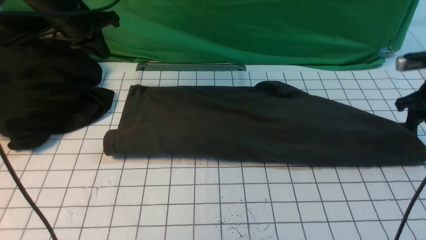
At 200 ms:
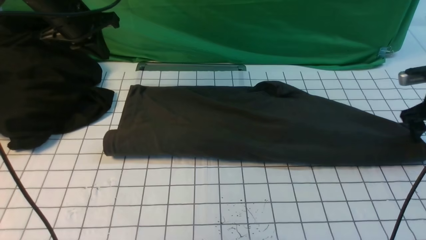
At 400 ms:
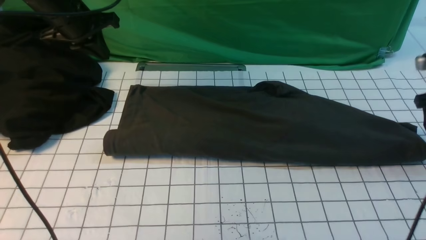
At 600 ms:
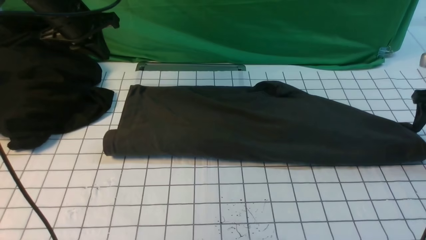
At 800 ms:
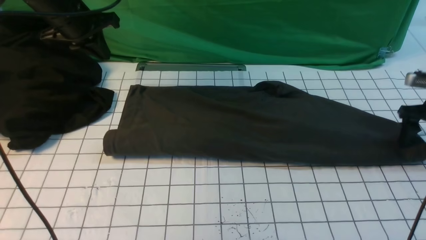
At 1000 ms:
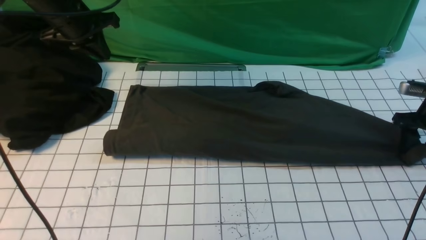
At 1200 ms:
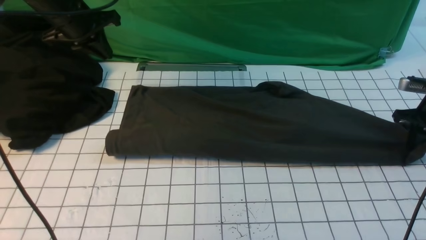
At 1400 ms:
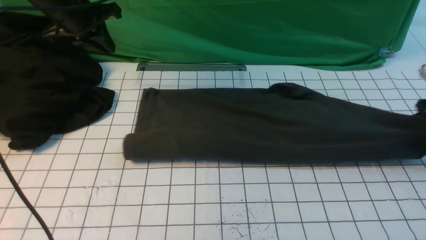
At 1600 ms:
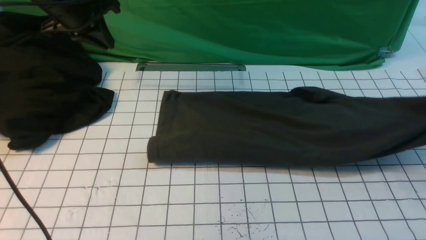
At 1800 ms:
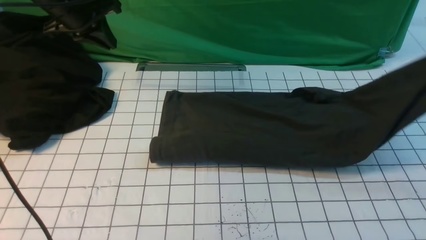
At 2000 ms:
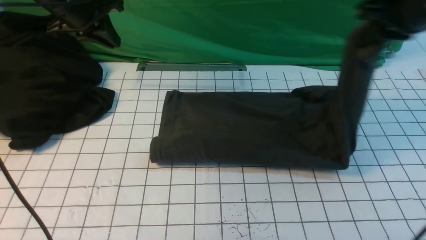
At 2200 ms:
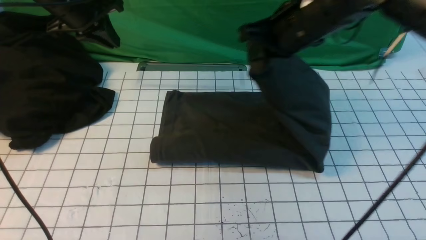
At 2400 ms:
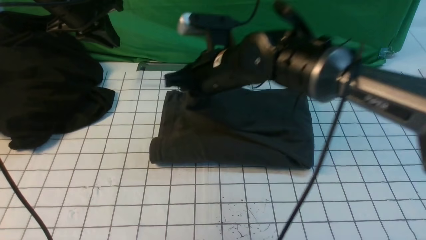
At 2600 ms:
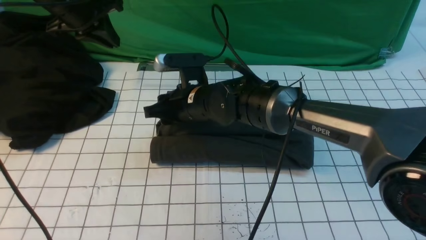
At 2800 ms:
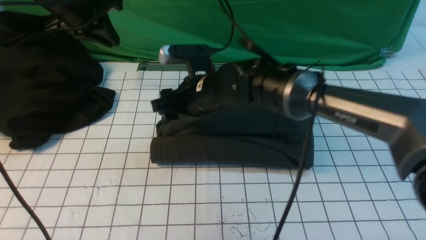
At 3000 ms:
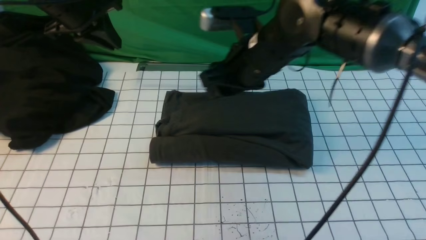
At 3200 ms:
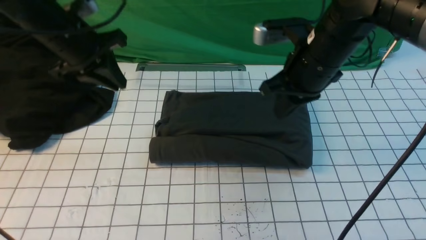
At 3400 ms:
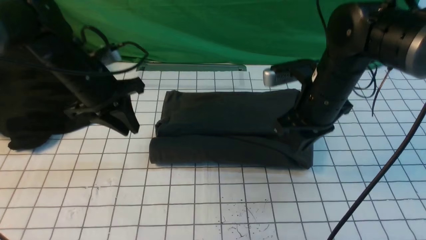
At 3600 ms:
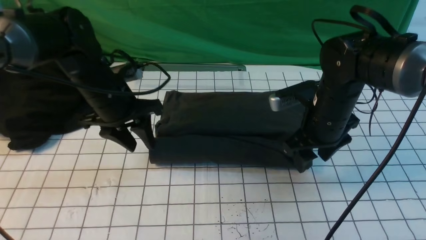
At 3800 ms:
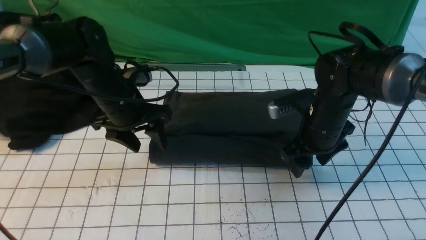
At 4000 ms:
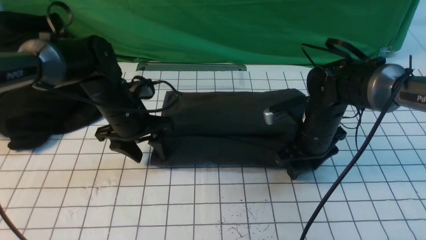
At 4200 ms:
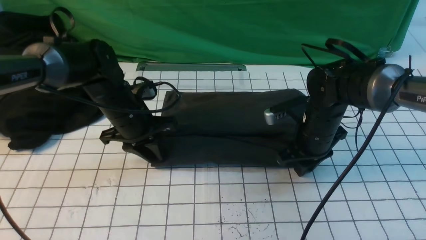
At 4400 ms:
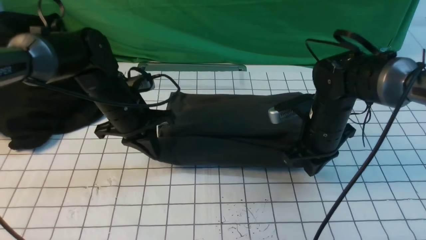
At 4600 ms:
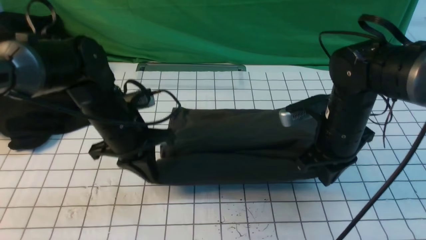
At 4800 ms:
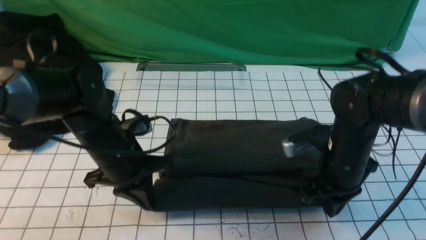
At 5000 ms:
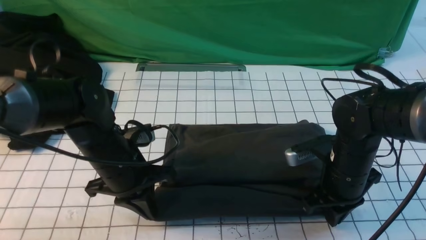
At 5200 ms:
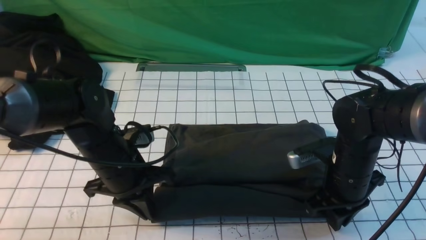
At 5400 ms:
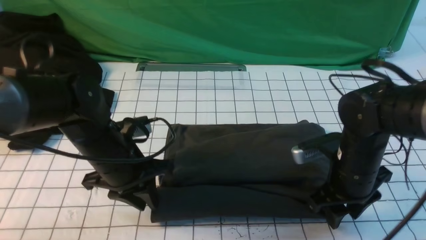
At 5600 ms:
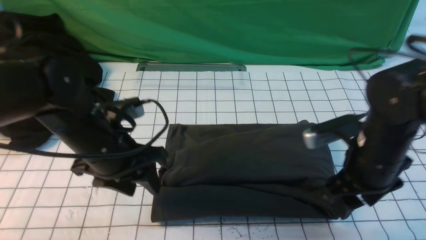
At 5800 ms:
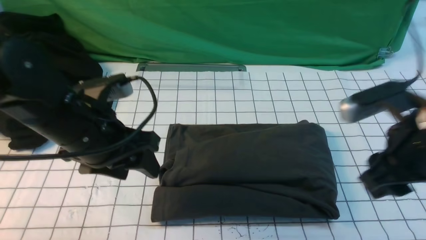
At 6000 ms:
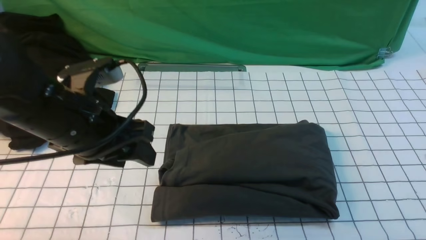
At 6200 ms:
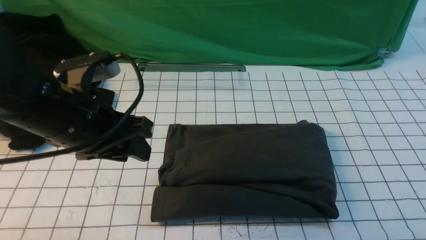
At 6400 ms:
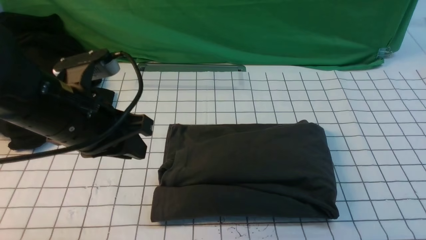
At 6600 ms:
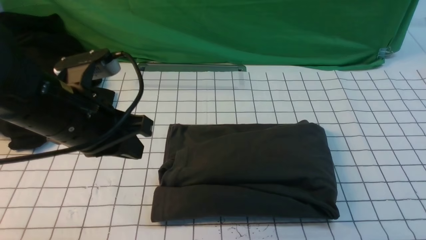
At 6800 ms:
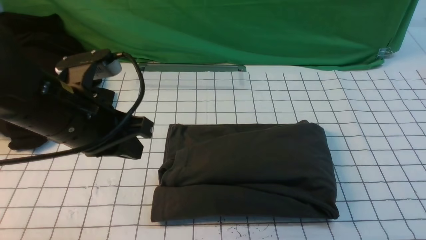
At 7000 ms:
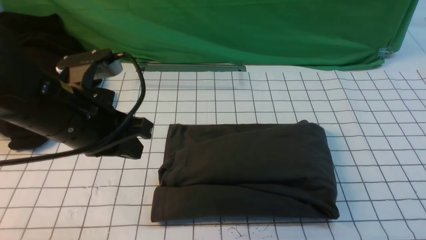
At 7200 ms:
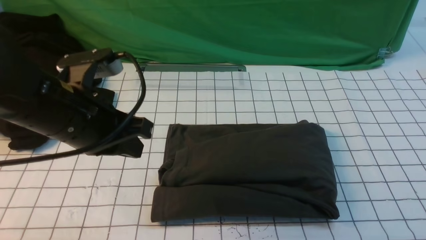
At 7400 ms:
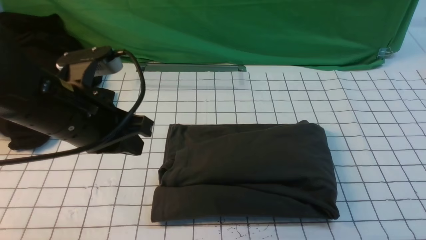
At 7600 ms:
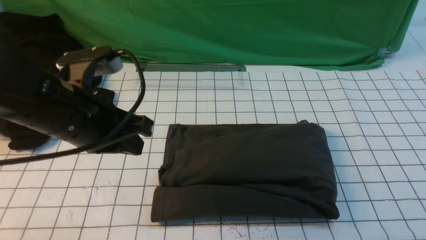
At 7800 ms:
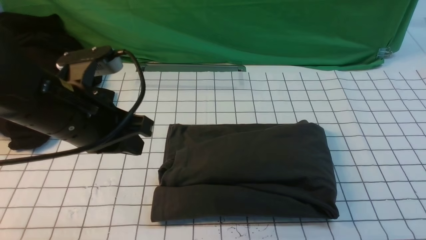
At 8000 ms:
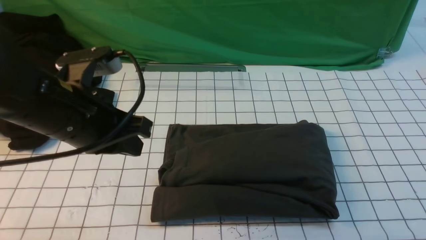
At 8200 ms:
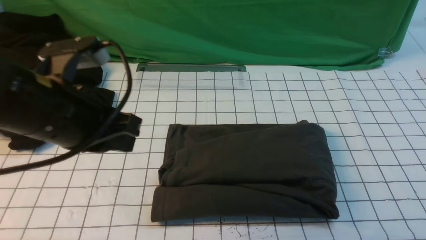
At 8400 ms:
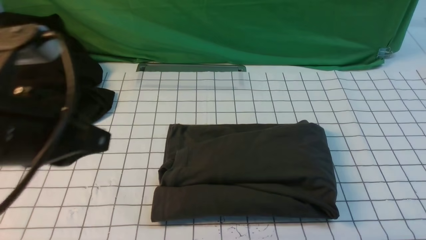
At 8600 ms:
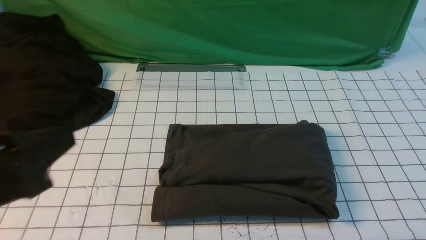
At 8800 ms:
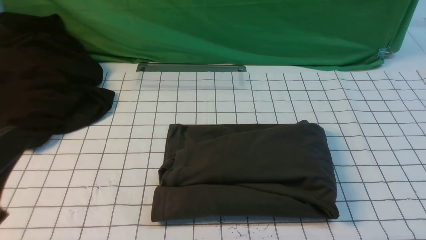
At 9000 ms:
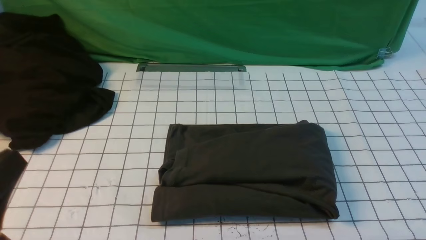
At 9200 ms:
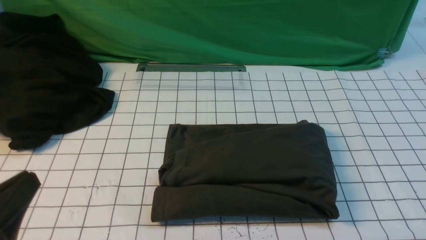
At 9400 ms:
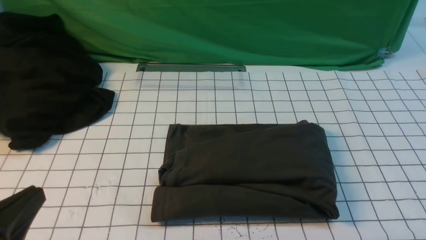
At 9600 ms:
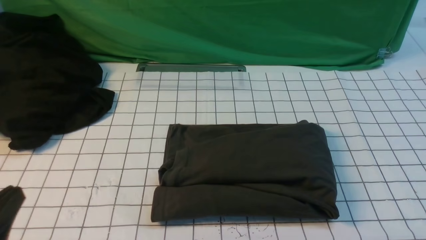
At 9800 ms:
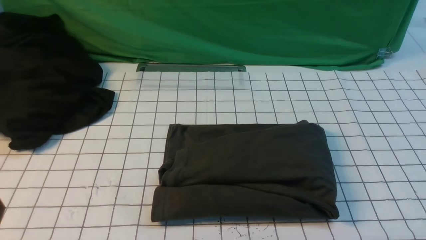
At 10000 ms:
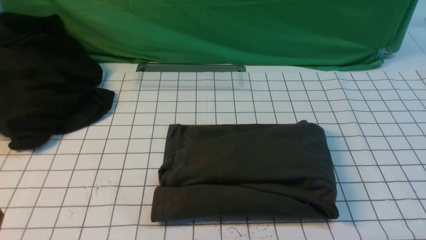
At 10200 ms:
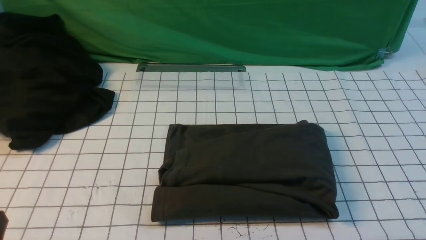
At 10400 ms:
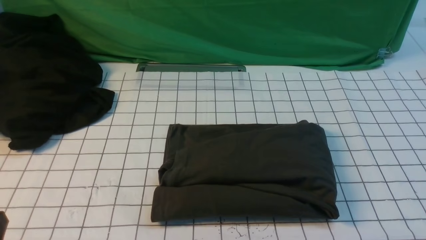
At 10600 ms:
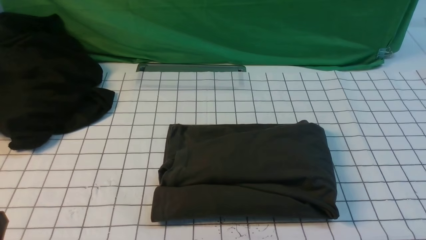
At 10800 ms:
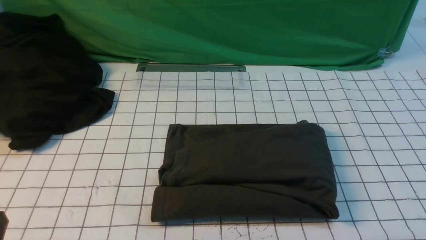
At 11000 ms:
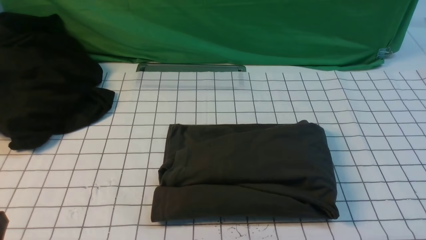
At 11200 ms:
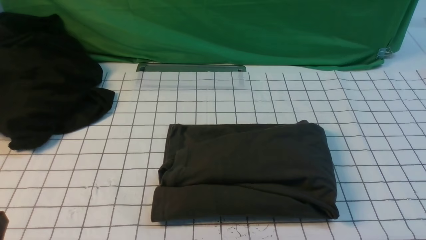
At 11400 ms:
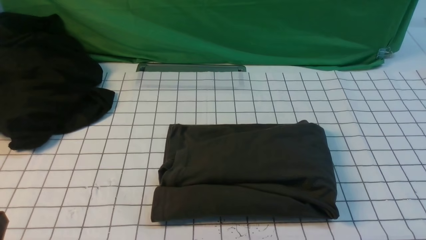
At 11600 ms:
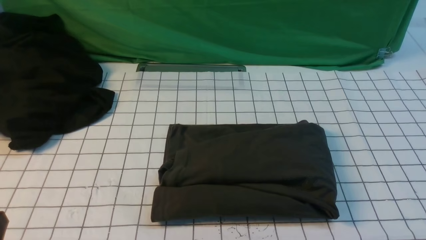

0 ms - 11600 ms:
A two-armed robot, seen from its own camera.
Step, 1600 ms - 2800 ms: use the right arm to drag the right edge of the fabric to the left and folds it over the left edge.
0 ms - 1400 ms: The right gripper closes up.
1400 ms - 2800 ms: The right gripper is displaced to the left by approximately 40 cm, and opens.
2800 ms - 4400 ms: The left gripper moves downward, backward and to the right, about 20 cm, and opens and closes again. Meanwhile the right gripper heads to the right, covering roughly 15 cm, and closes its fingers.
4400 ms - 5800 ms: The left gripper moves backward and upward, about 15 cm, and opens up, while the right gripper travels backward, upward and to the right by roughly 20 cm.
5800 ms - 7200 ms: The right gripper shifts approximately 15 cm backward and to the right, and closes; the left gripper closes up.
7200 ms - 8800 ms: The right gripper travels downward by about 15 cm, while the left gripper moves backward and to the left, approximately 20 cm.
8800 ms - 10200 ms: The left gripper travels downward by some 10 cm.
10200 ms - 11600 ms: The two grippers keep their place.

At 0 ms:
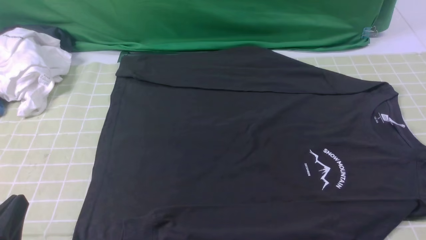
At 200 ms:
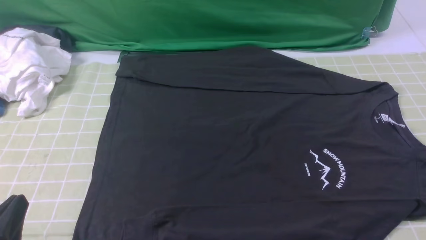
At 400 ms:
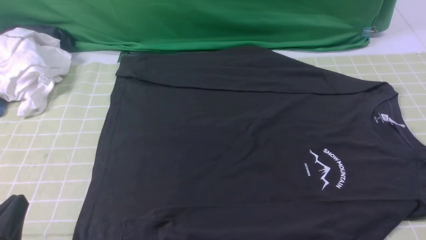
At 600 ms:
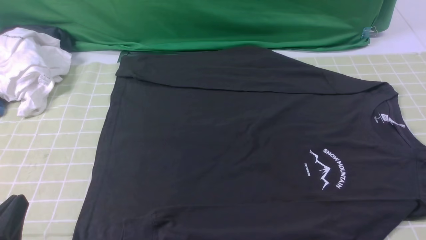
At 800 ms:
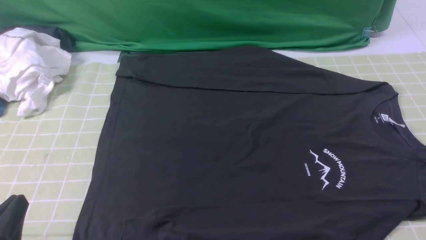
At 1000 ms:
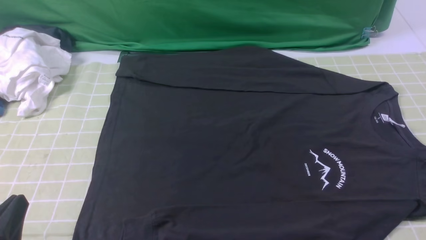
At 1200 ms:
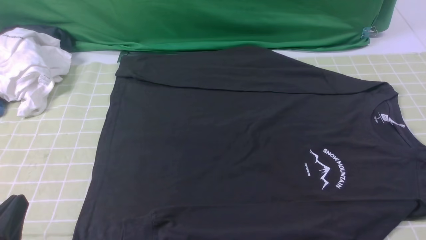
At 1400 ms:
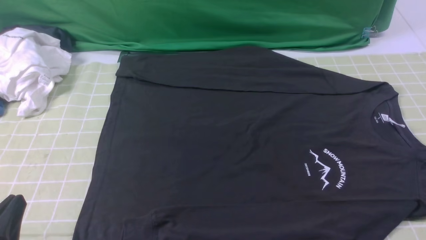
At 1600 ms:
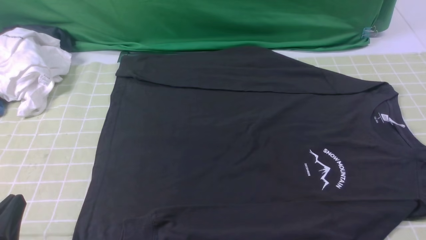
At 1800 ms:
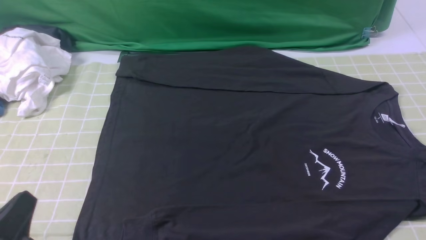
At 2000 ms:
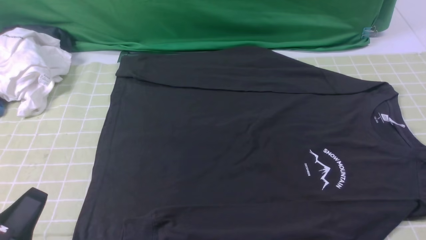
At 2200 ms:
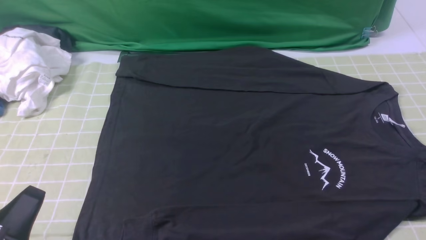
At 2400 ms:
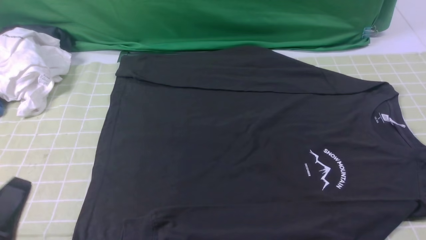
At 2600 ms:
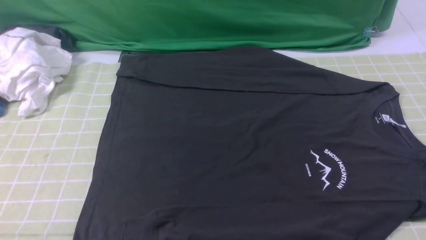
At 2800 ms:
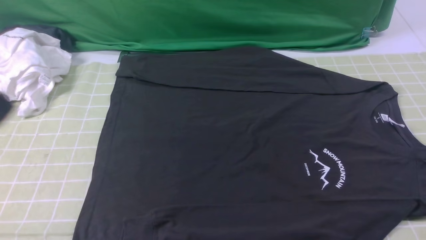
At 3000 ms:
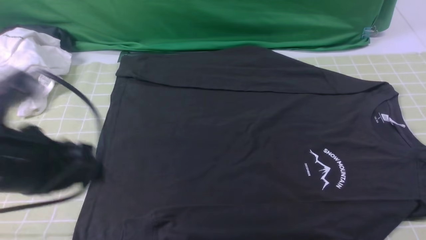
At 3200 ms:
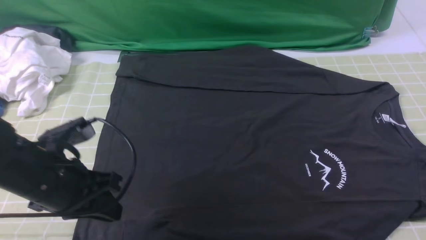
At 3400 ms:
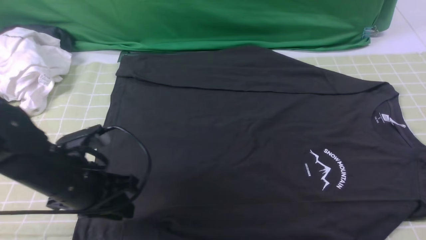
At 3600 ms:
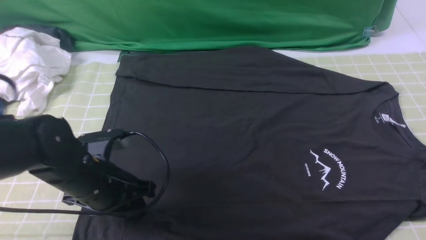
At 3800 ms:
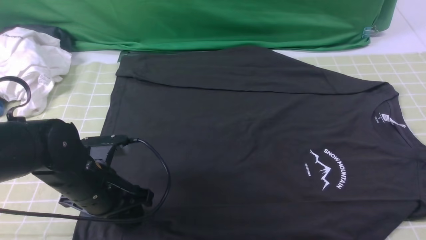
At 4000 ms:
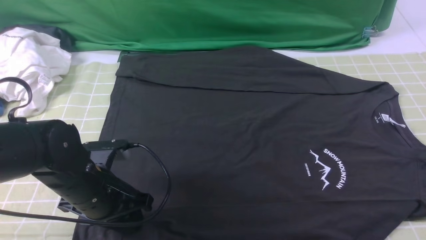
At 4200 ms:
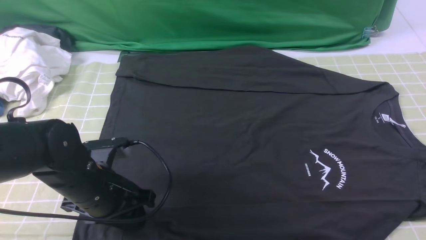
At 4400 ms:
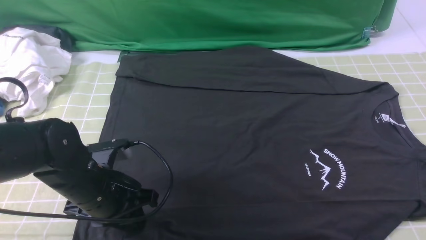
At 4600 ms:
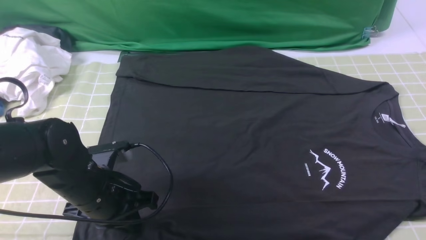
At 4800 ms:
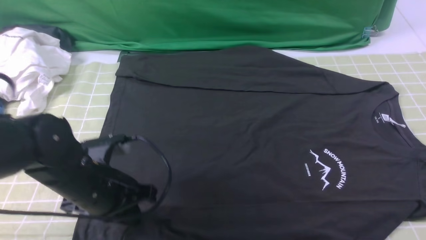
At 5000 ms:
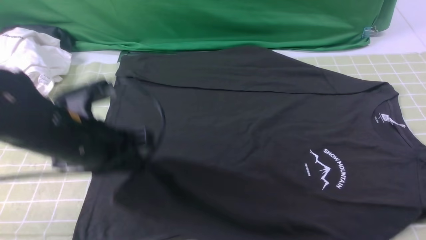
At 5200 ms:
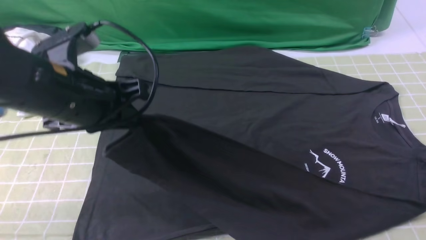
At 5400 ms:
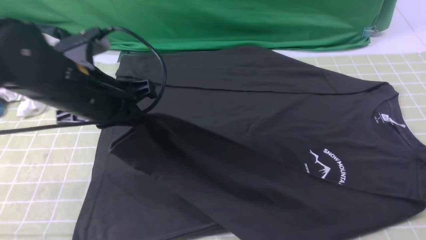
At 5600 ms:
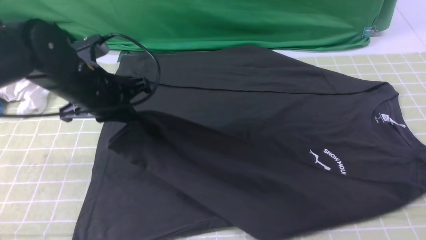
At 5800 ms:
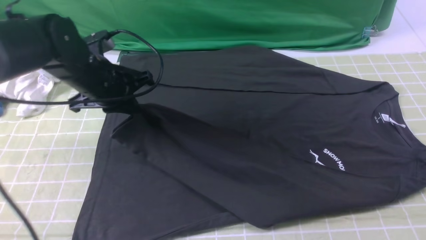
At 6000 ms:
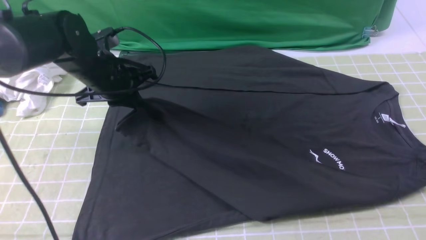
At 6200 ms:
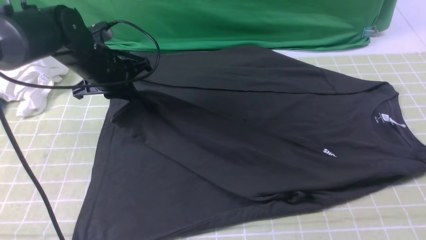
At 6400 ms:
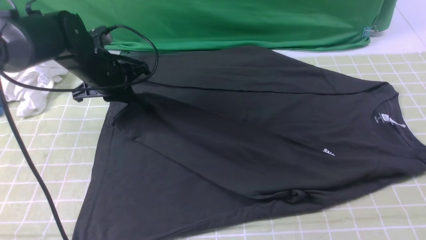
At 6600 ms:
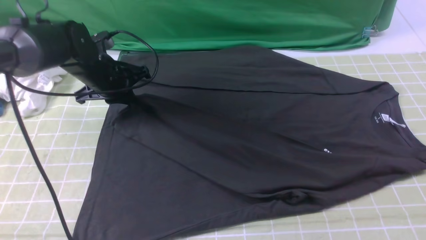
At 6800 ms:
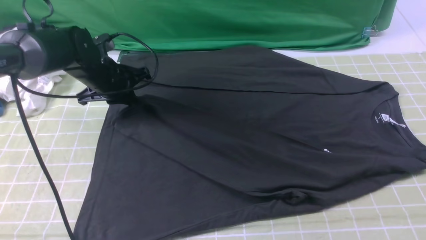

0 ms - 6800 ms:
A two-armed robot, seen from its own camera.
Step, 0 ms - 4600 ms: use the left arm to clamp the cuff closest to it.
0 ms - 1400 ms: Neither gripper changes place.
1400 ms - 2800 ms: The left gripper travels upward by roughly 15 cm.
2800 ms - 4000 ms: The right gripper shifts about 10 cm forward; the left gripper is displaced downward and forward by approximately 20 cm, and opens.
4000 ms - 5400 ms: The left gripper goes about 15 cm upward and forward, and closes up.
5400 ms - 6800 ms: The left gripper moves forward and downward, roughly 15 cm.
